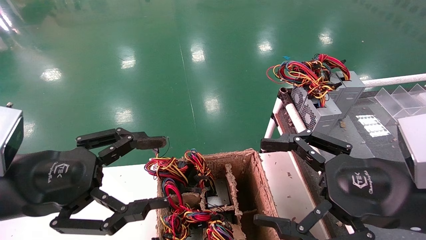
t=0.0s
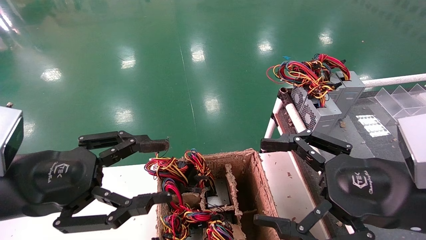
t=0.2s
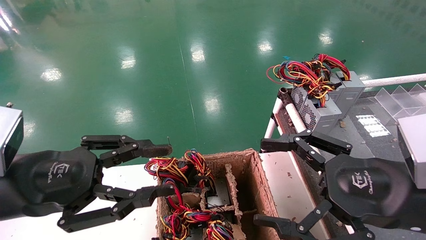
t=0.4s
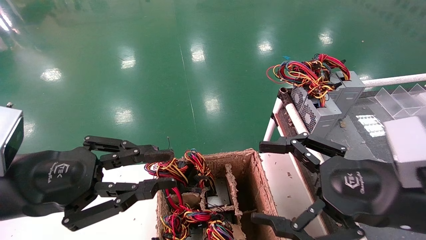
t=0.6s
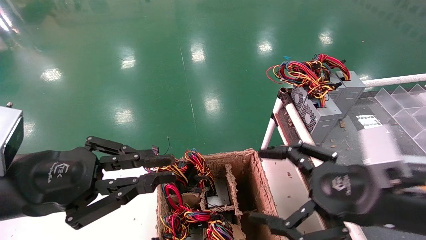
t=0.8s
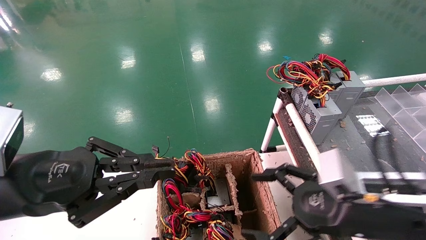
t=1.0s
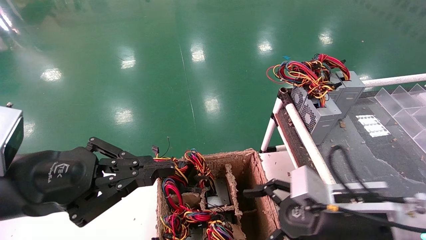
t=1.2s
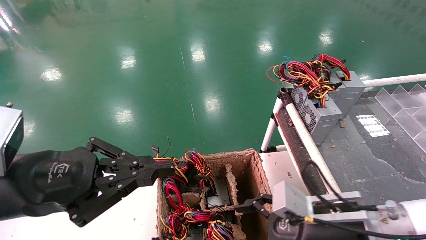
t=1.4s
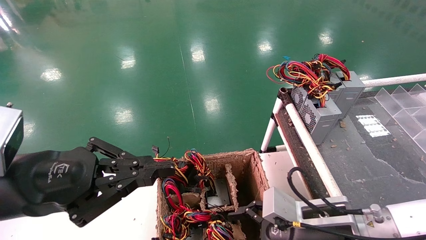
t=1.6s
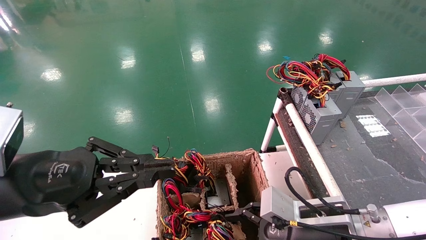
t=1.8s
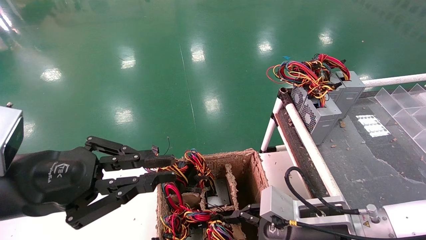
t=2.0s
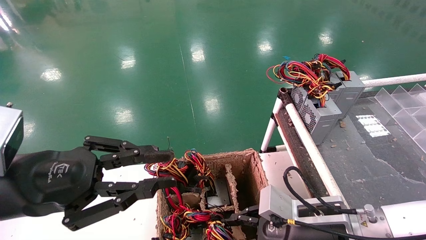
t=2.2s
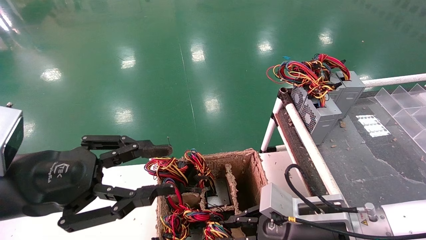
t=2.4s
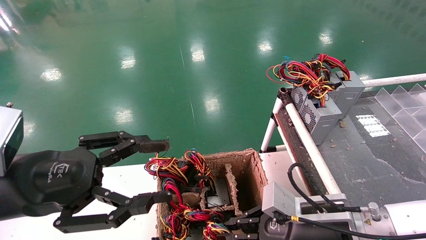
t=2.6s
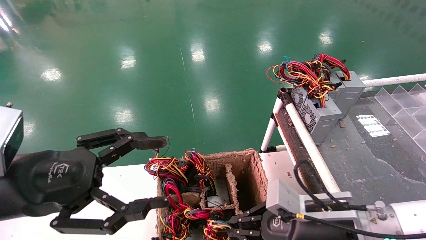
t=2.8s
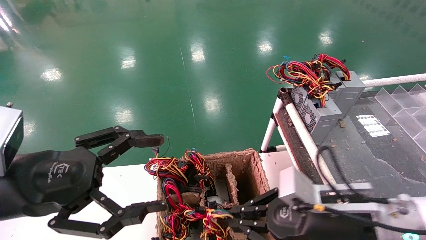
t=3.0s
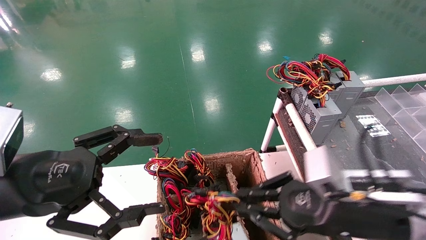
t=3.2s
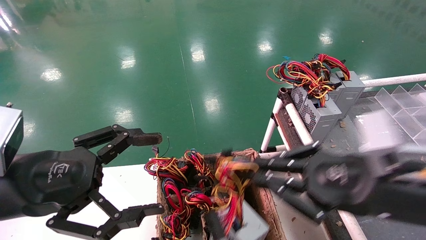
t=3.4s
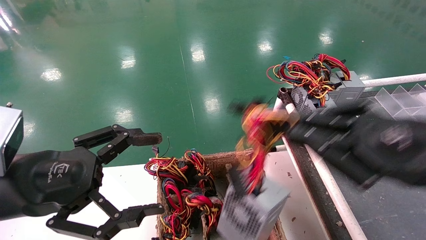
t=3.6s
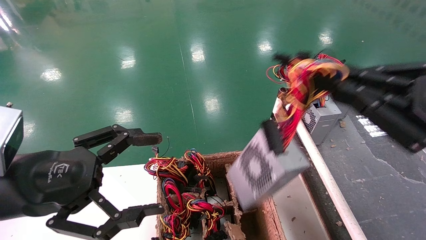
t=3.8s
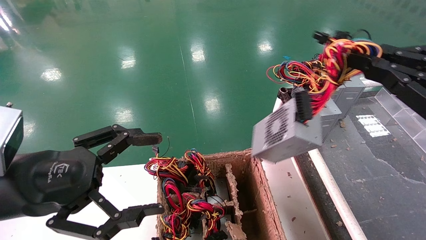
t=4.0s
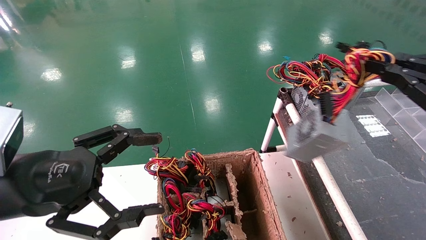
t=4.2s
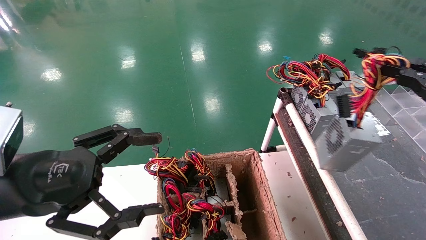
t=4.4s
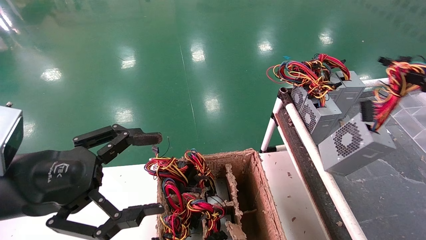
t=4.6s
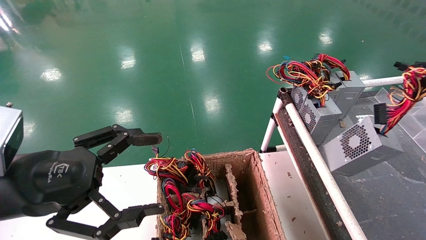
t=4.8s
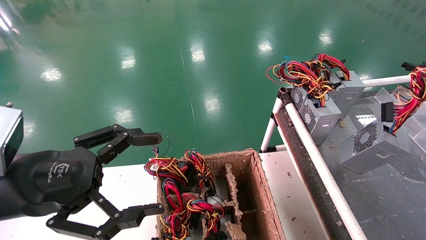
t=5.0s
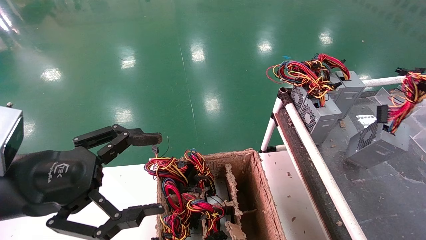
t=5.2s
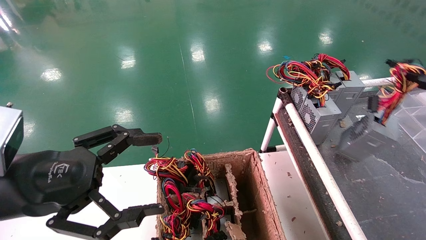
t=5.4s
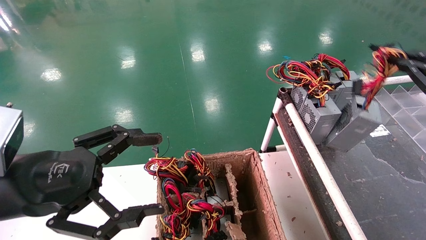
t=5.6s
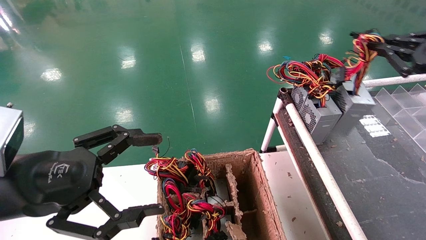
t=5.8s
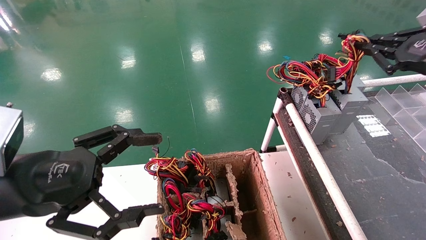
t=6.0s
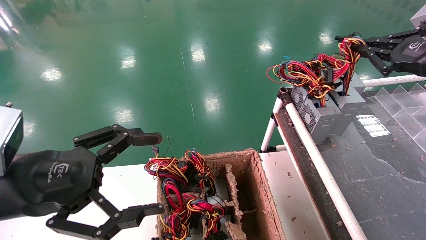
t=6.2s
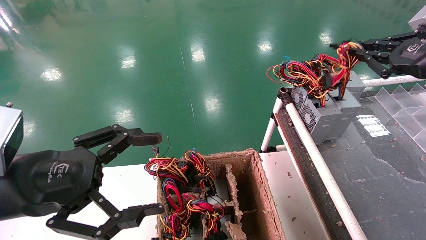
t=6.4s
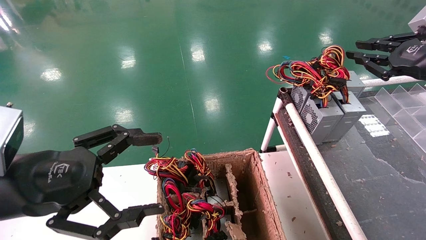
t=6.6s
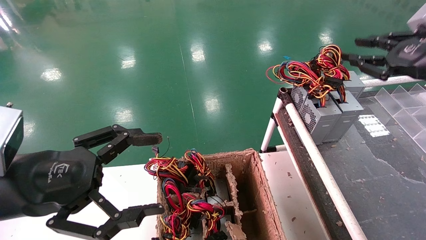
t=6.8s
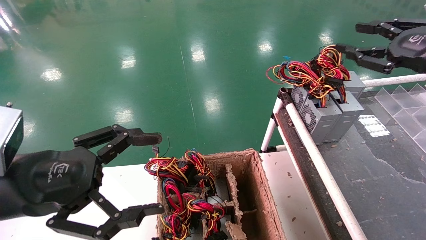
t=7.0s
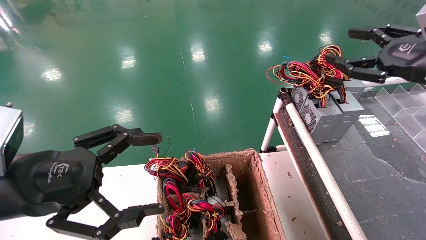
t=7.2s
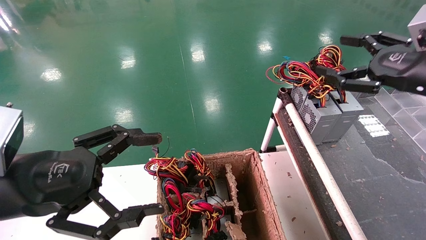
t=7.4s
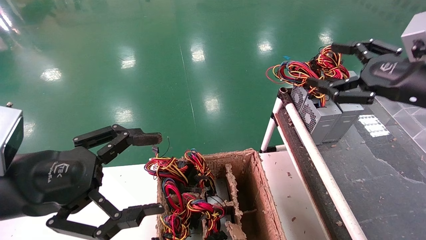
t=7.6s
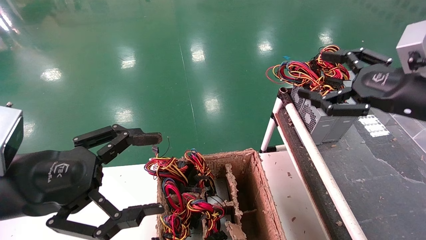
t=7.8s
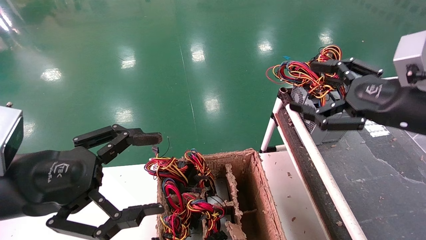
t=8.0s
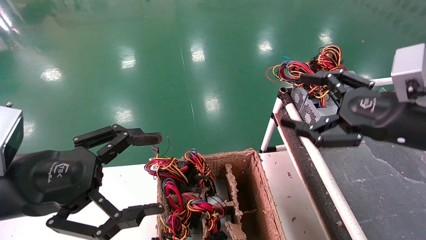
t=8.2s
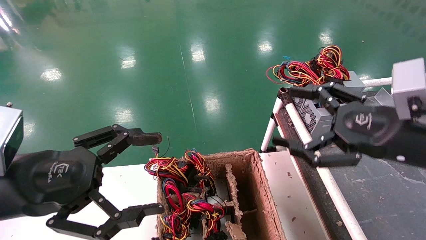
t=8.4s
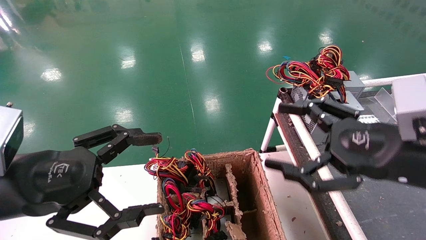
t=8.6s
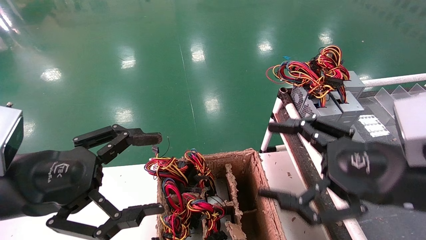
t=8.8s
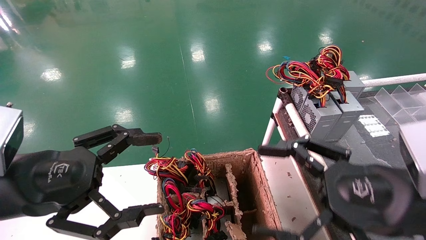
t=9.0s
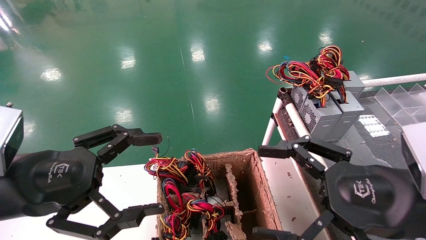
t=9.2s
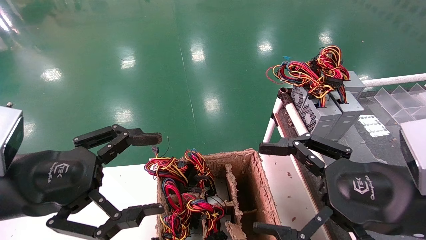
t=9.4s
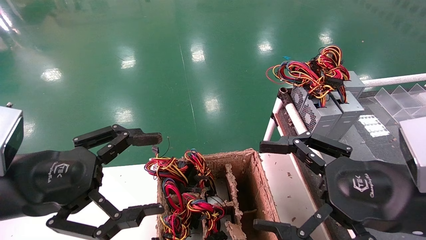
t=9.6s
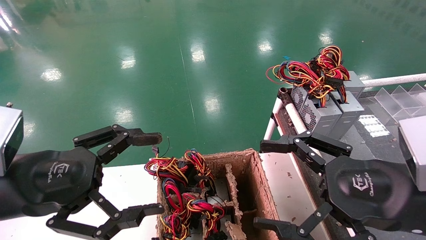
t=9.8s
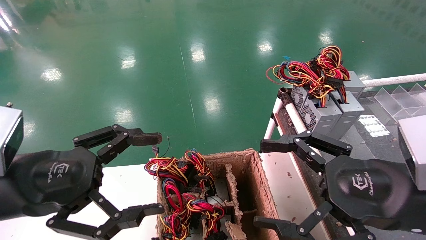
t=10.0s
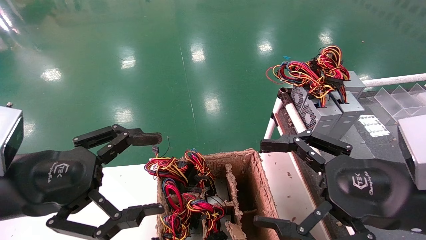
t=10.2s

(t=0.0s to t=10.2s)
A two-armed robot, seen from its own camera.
Step, t=1.0s - t=2.6s: Grab and lift the power supply from the large box.
Step, t=2.8s - t=6.6s: Place the power supply on the operating table.
t=0.0s - t=1.4s: The left gripper closes, while the right gripper travels downward, forward and to the left by about 15 cm.
t=1.4s - t=3.0s: The right gripper closes, while the left gripper opens.
t=3.0s - t=4.4s: The right gripper heads to the right and upward, covering about 25 cm.
t=4.4s - t=5.8s: The right gripper moves forward, approximately 10 cm.
t=5.8s - t=7.2s: The right gripper moves about 5 cm, and opens up.
t=7.2s - t=8.8s: The right gripper is displaced to the left, backward and downward by approximately 20 cm, and opens up.
t=8.8s - t=10.2s: The grippers make only small movements.

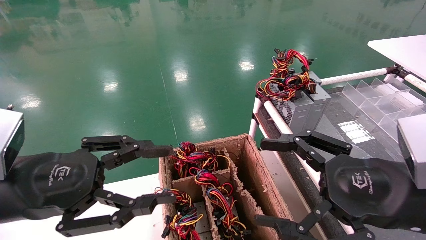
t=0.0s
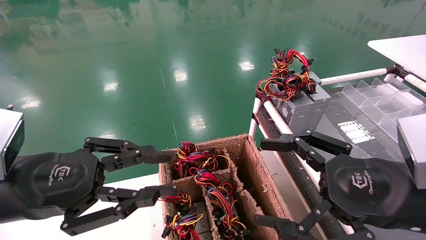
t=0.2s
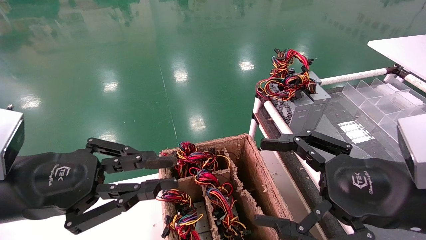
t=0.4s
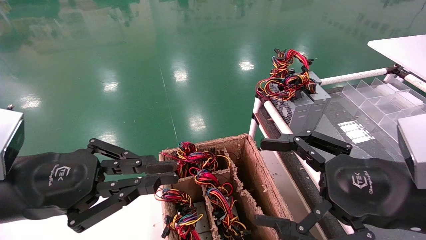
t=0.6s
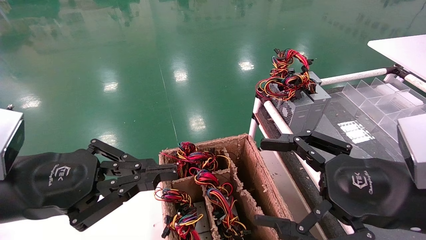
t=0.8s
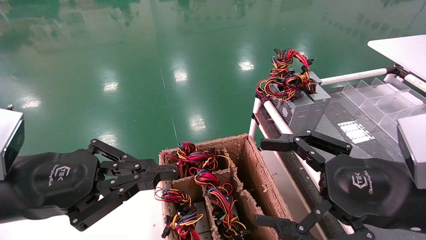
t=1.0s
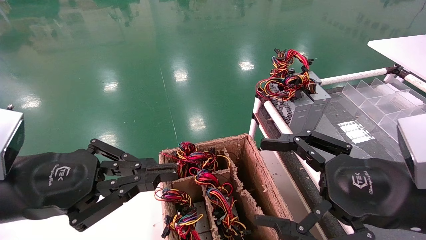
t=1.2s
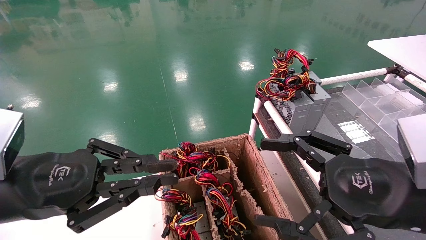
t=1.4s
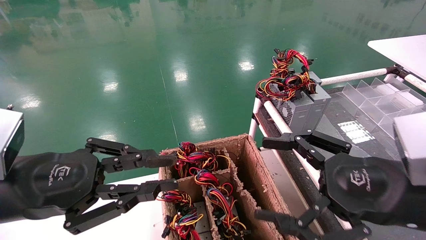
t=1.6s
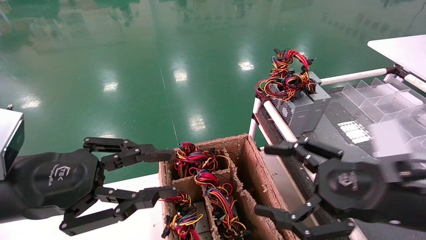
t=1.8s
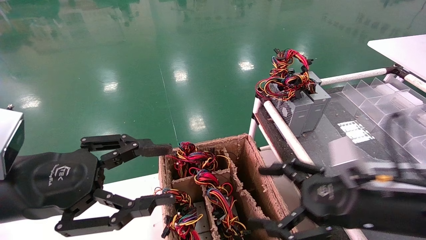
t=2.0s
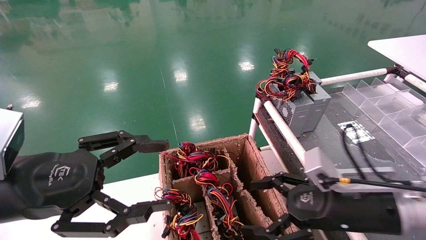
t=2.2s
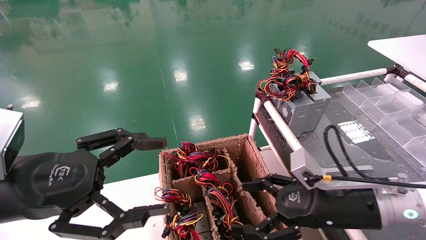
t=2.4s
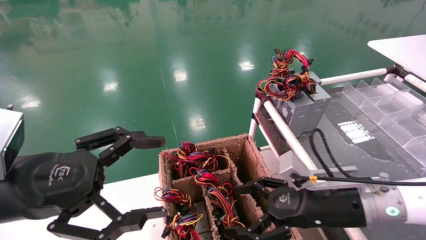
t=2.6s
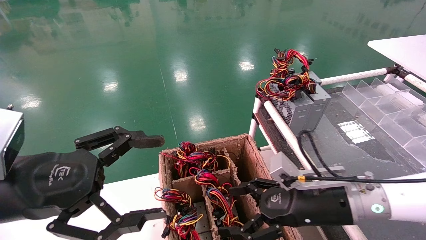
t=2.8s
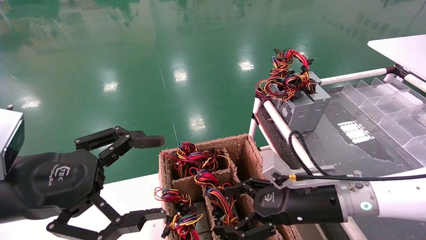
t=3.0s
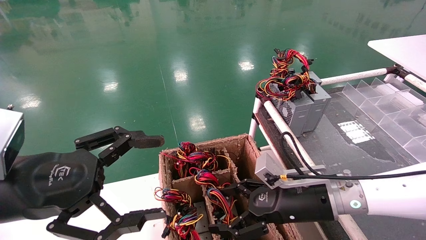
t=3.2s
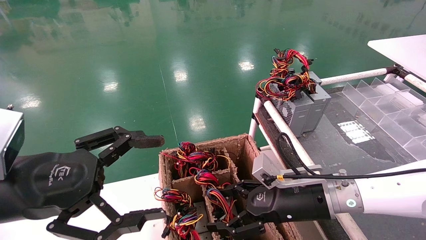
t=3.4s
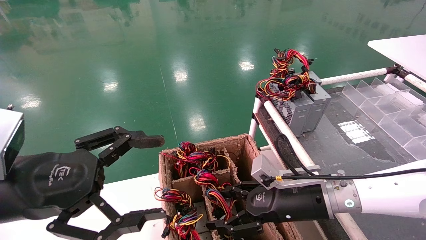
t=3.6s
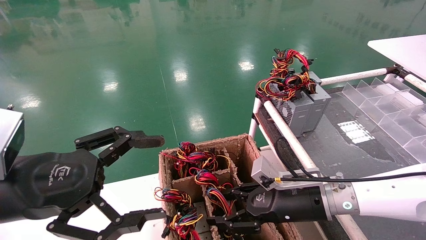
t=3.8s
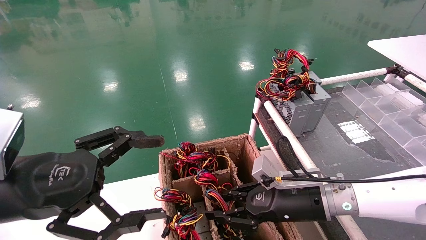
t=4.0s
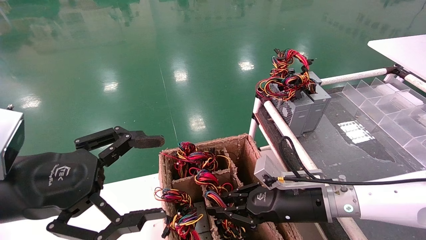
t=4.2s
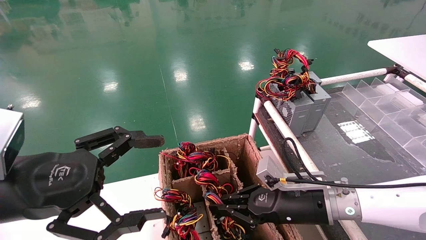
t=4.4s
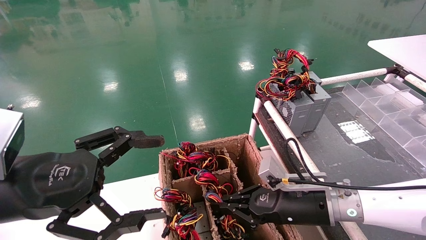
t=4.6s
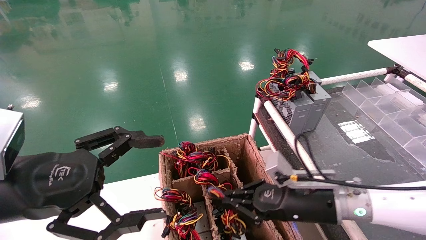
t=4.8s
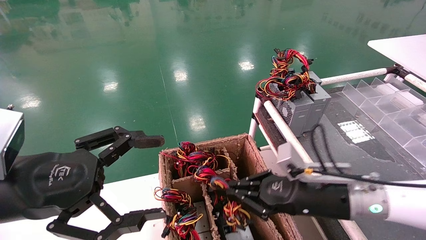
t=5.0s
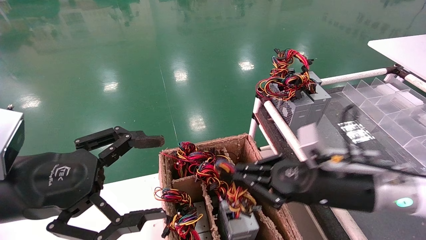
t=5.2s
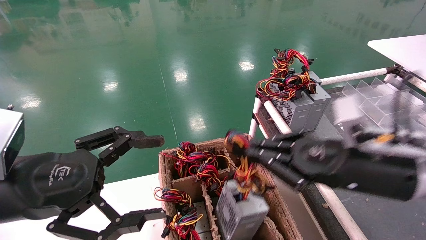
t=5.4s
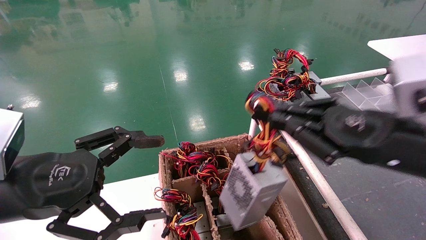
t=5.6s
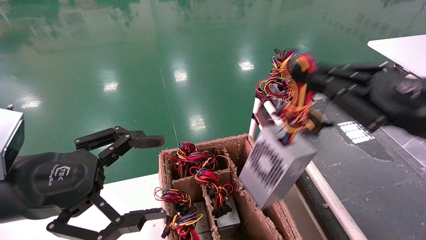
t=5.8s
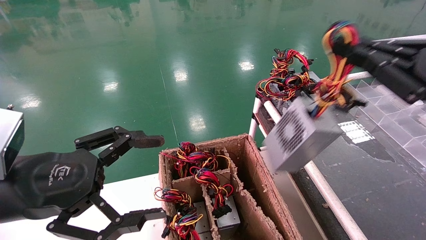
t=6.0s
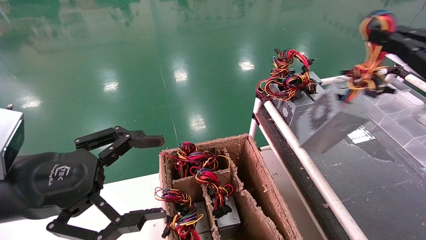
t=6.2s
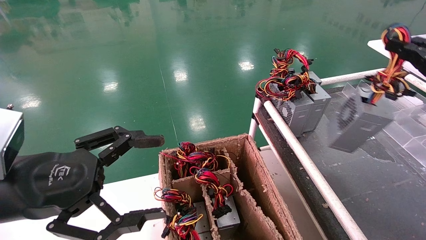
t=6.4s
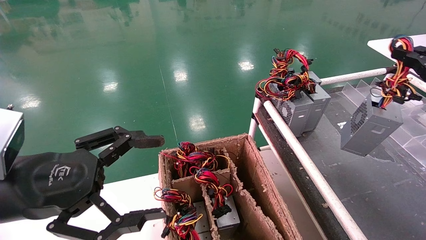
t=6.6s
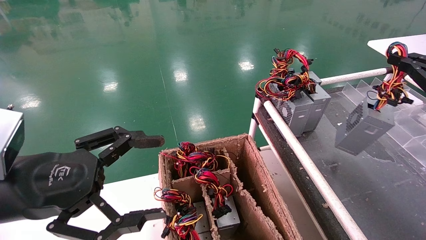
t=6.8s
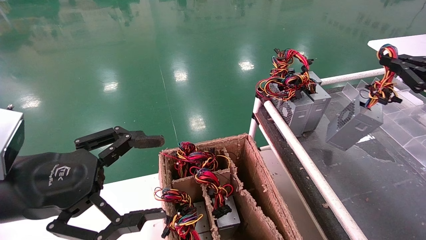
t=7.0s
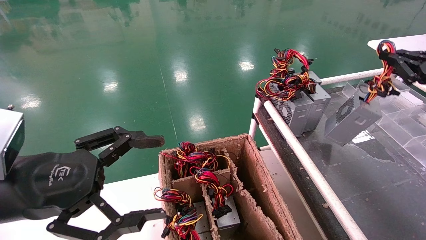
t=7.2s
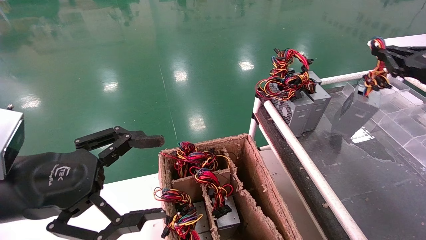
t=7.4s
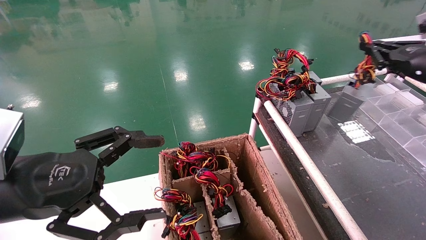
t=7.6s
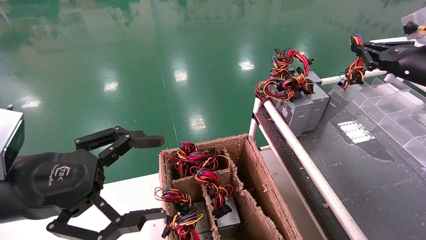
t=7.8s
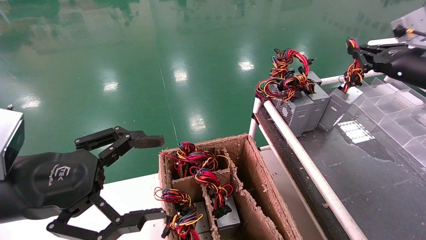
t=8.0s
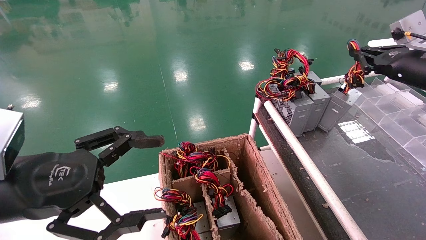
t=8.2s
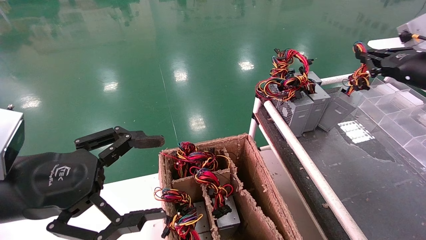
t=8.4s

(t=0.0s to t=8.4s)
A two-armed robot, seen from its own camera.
Step, t=1.0s - t=4.4s: Grab and lift the power supply from the large box.
t=0.0s - t=1.4s: The left gripper closes.
t=1.4s - t=2.8s: The left gripper opens. The right gripper moves forward, downward and to the left, some 15 cm.
t=2.8s - t=4.2s: The right gripper closes its fingers.
t=4.2s - t=5.6s: The right gripper moves upward, to the right and backward, some 20 cm.
t=5.6s - t=7.0s: The right gripper goes some 20 cm to the right.
t=7.0s - t=8.4s: The right gripper heads forward, covering some 10 cm.
